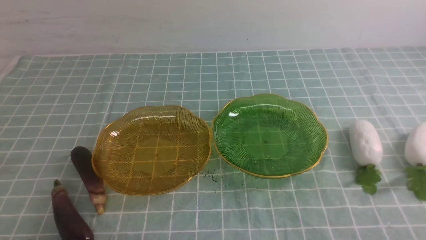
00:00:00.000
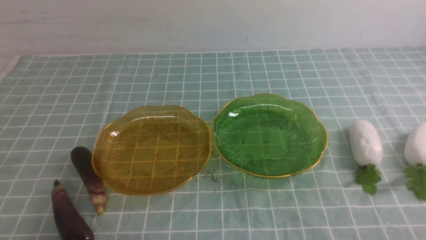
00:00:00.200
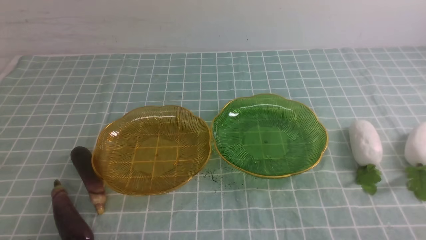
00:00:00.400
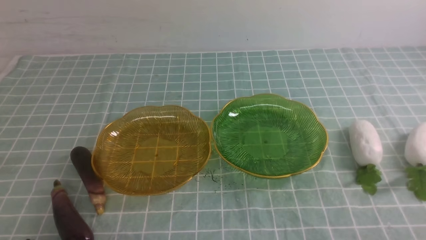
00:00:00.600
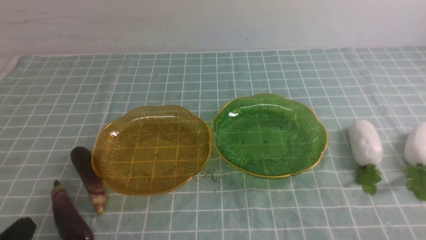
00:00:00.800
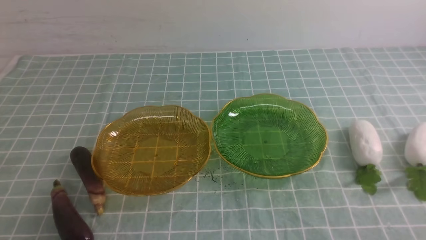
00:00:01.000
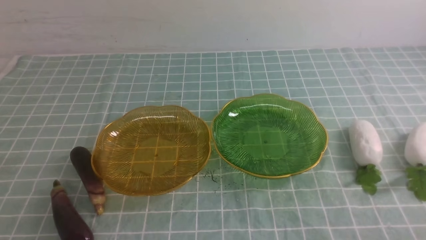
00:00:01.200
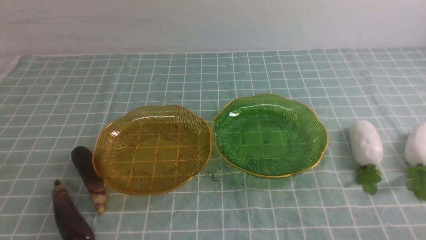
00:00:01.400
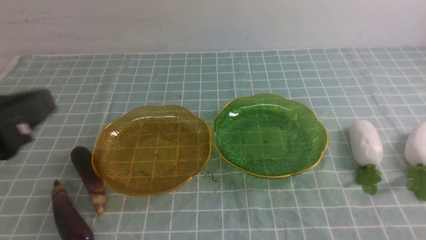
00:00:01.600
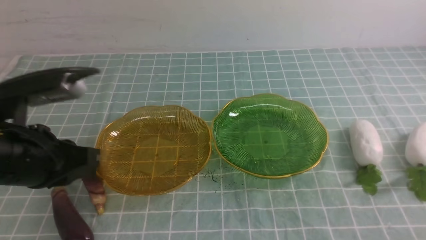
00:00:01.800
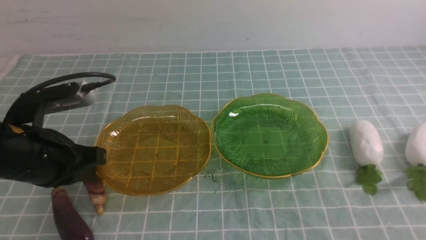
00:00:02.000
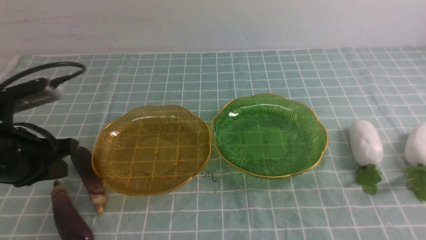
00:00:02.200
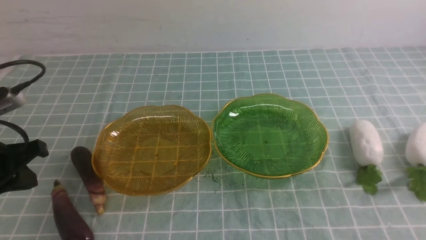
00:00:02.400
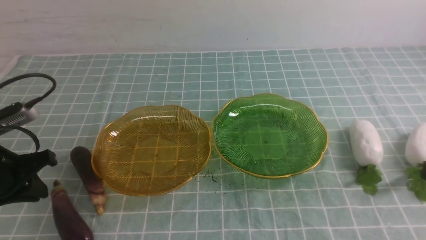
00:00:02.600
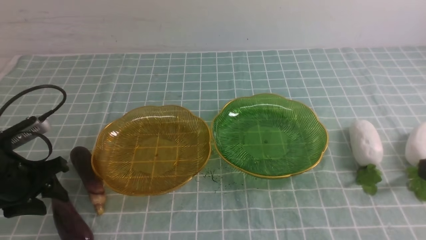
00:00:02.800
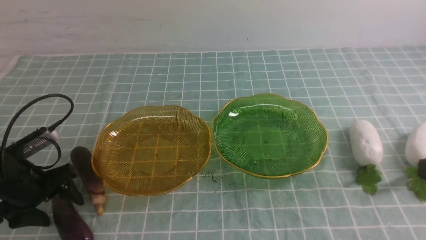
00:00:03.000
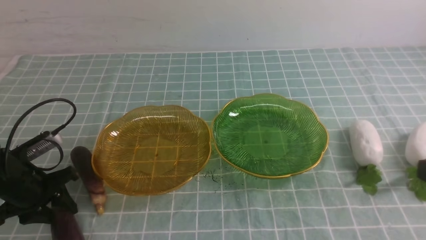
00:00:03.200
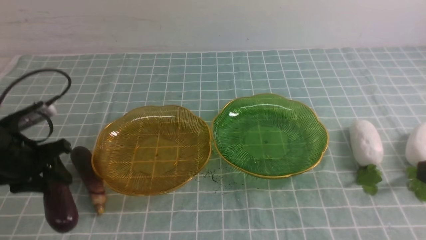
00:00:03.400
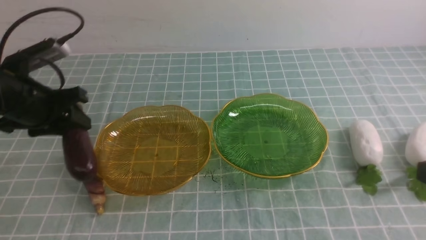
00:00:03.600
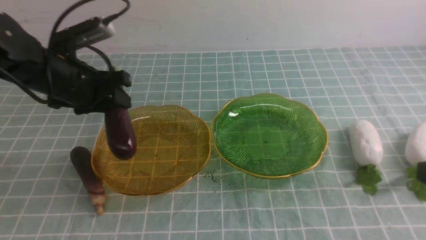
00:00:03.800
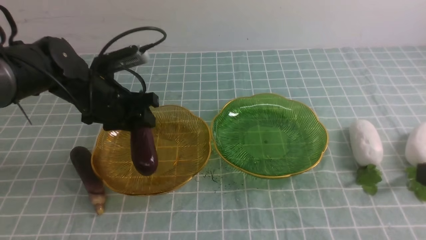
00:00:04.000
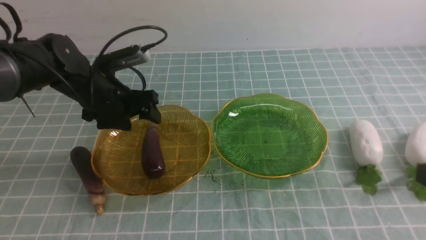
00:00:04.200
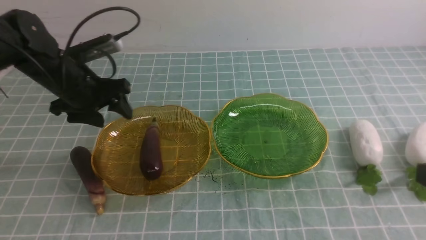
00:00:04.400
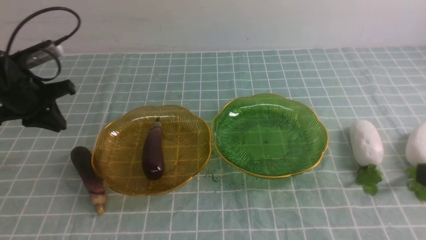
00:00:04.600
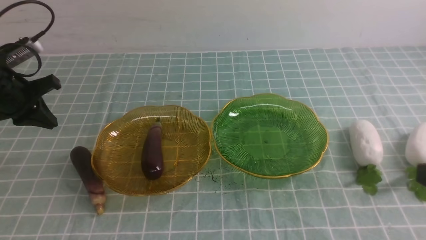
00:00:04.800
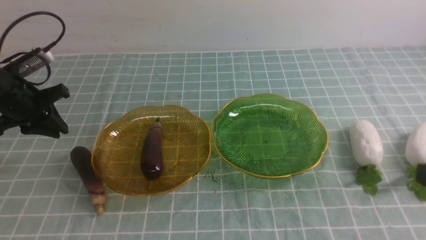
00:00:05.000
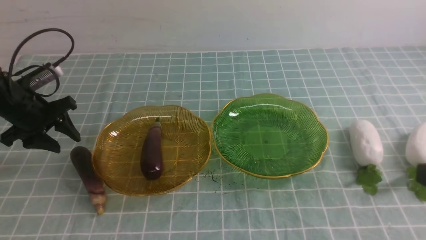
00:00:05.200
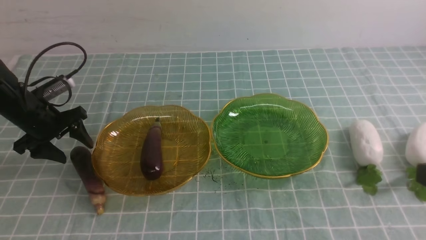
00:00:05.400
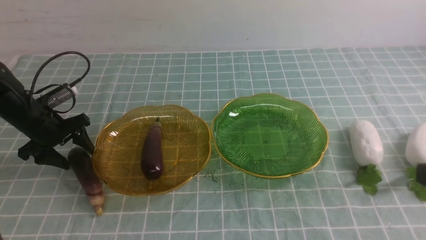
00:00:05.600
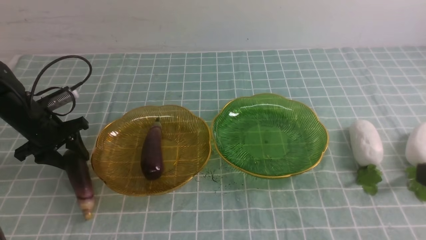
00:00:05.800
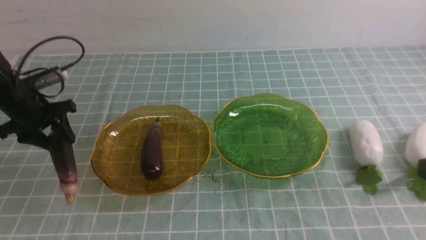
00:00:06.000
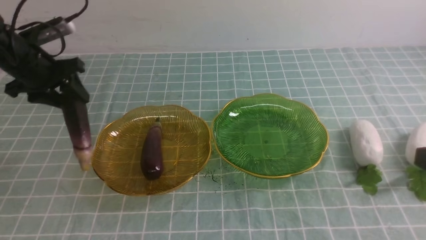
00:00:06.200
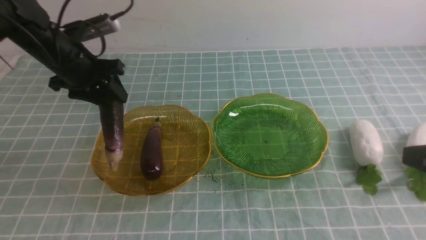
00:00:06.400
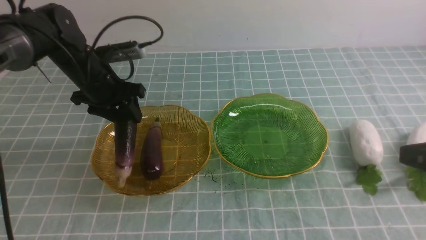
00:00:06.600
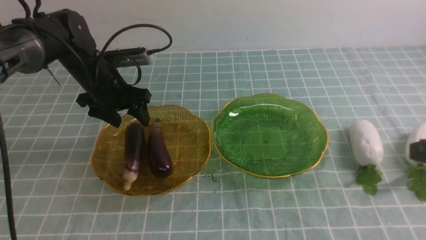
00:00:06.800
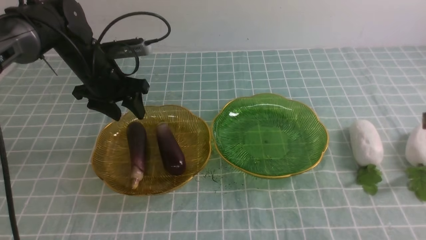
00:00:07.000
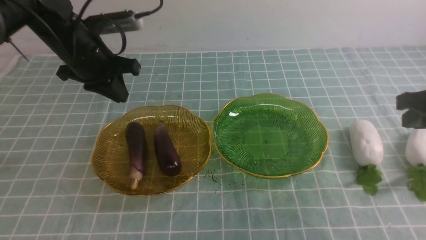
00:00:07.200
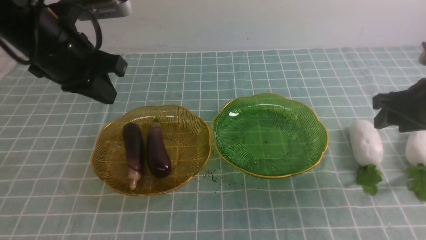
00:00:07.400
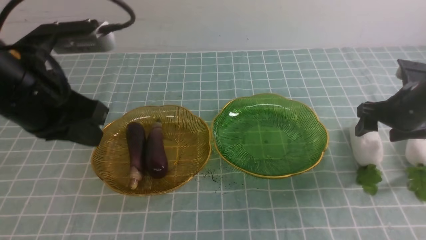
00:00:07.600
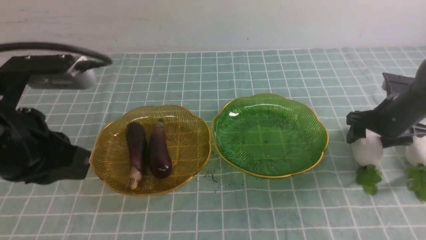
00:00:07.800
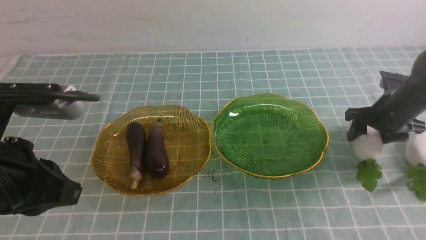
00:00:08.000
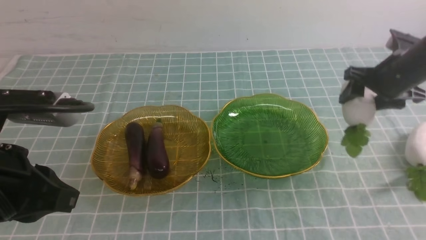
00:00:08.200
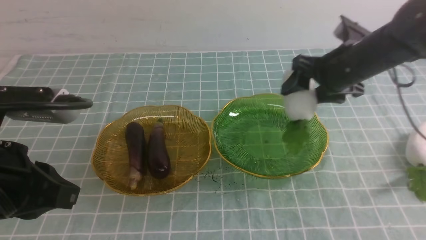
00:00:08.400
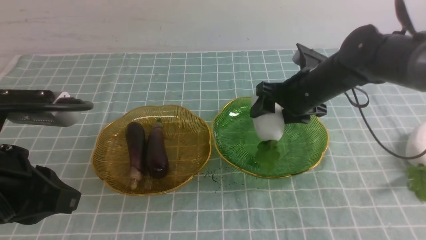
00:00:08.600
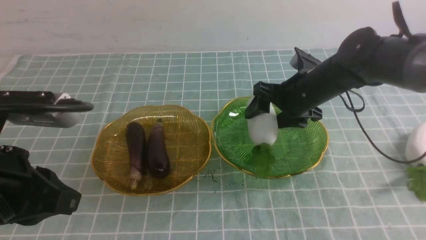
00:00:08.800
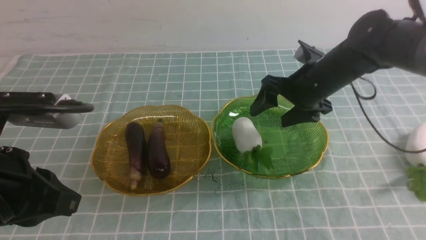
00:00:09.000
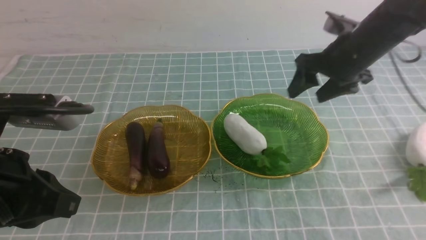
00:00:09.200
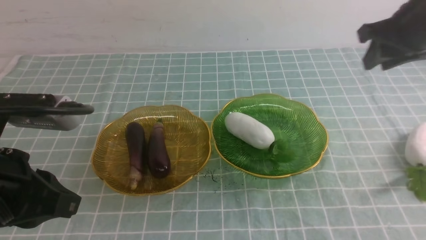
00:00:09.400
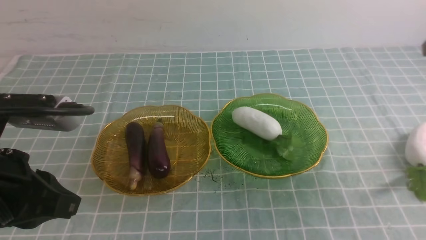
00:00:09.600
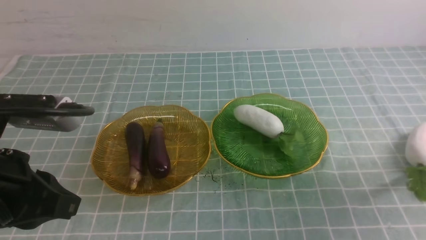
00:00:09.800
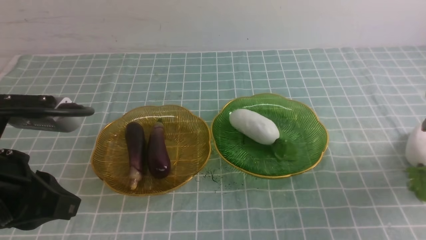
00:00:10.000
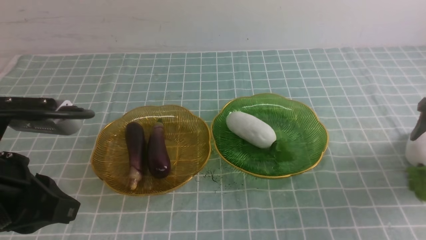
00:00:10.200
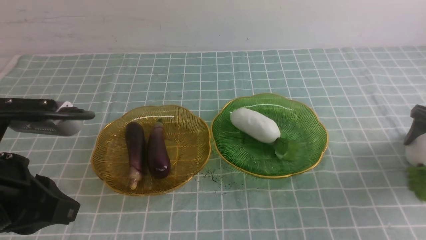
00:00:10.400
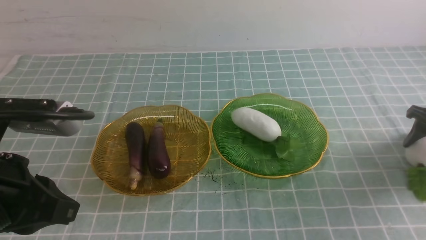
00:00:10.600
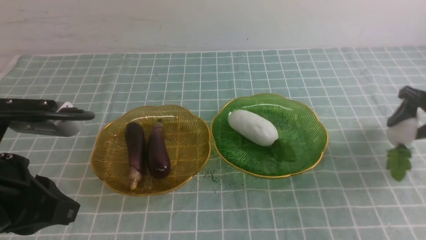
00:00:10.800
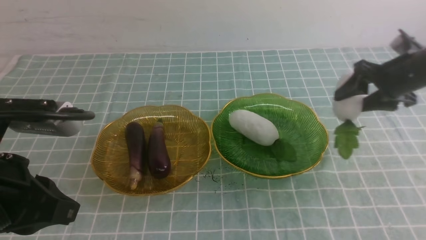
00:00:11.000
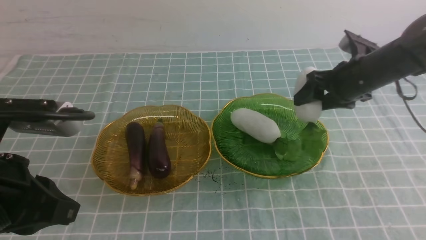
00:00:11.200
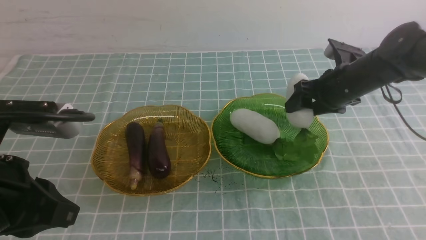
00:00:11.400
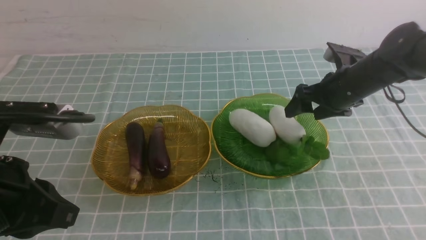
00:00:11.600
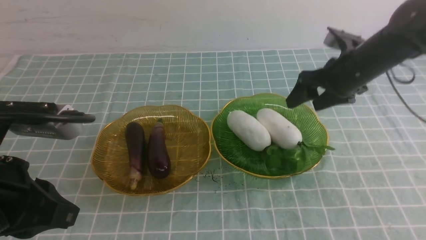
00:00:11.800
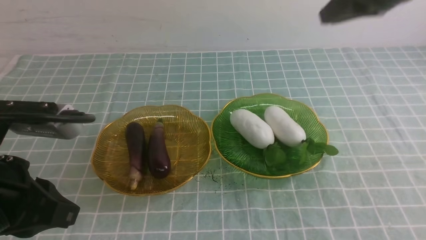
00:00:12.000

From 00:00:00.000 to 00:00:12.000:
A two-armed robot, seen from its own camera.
Step, from 00:00:00.000 to 00:00:06.800: use the left arm to grab an eggplant and put it into the left plate.
Step, from 00:00:07.000 to 00:00:11.600: use the right arm to grab a radish and put it into the right plate.
From 00:00:00.000 to 00:00:01.600: The left gripper moves upward and forward, about 20 cm.
From 00:00:01.600 to 00:00:03.000: The left gripper goes some 25 cm downward, forward and to the left, and opens up.
From 00:00:03.000 to 00:00:04.400: The left gripper is displaced forward, upward and to the right by roughly 15 cm.
From 00:00:04.400 to 00:00:06.000: The left gripper heads to the left, covering approximately 5 cm, reaches roughly 10 cm downward, then returns, and closes, then opens again.
From 00:00:06.000 to 00:00:07.600: The left gripper shifts about 25 cm backward, to the right and upward, and closes its fingers. The right gripper goes some 30 cm forward and downward, and opens.
From 00:00:07.600 to 00:00:09.000: The right gripper travels to the left and upward by some 15 cm. Meanwhile the left gripper travels backward by some 5 cm.
From 00:00:09.000 to 00:00:10.400: The right gripper heads to the right, covering some 25 cm, and closes, then opens again.
From 00:00:10.400 to 00:00:12.000: The right gripper goes about 35 cm upward and to the left, and closes up.

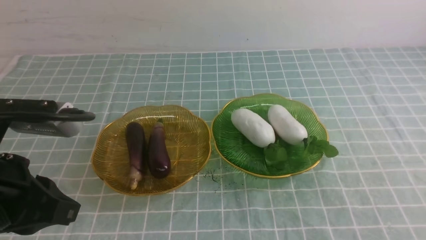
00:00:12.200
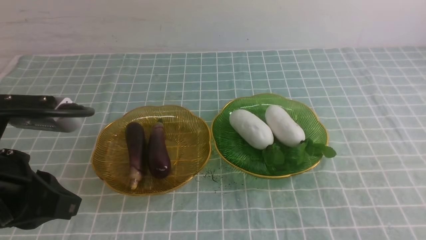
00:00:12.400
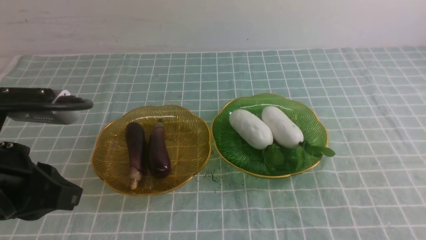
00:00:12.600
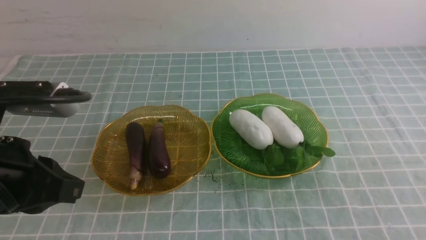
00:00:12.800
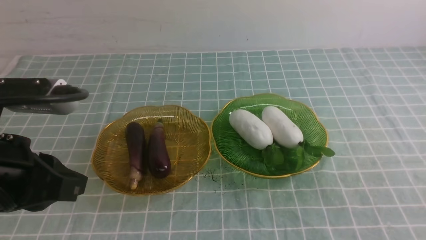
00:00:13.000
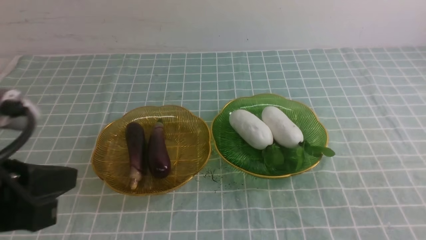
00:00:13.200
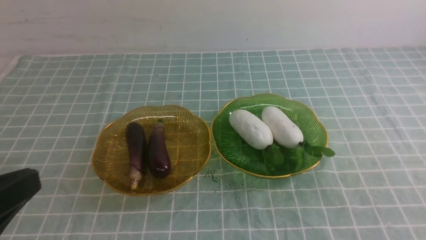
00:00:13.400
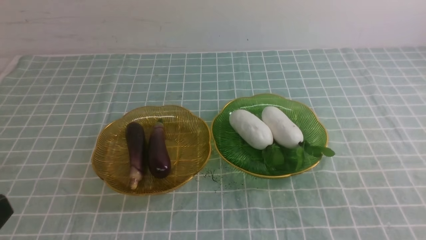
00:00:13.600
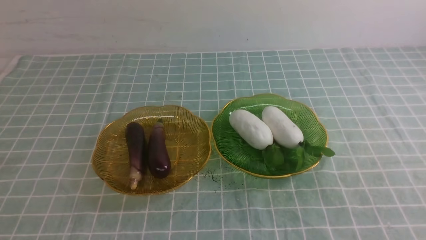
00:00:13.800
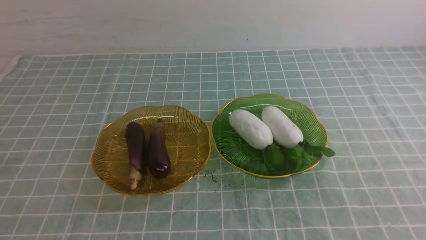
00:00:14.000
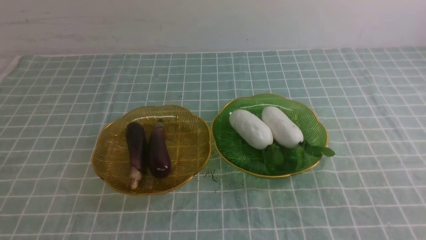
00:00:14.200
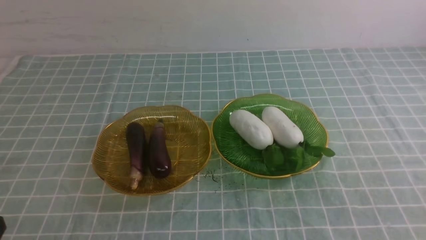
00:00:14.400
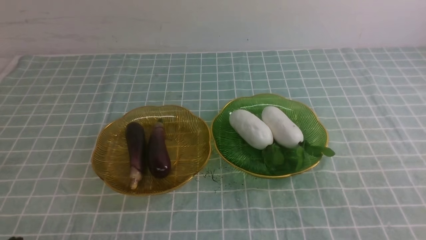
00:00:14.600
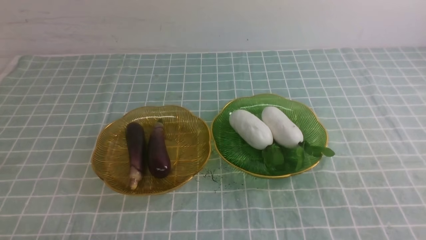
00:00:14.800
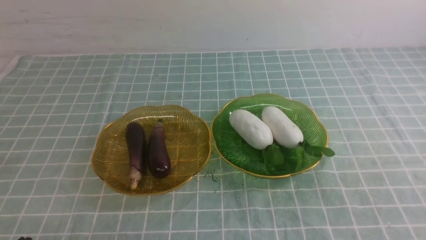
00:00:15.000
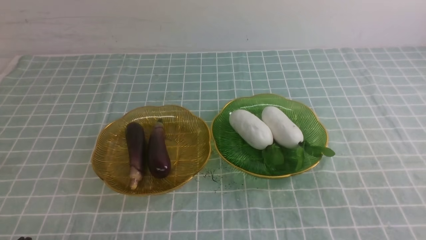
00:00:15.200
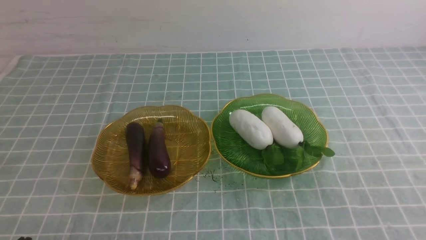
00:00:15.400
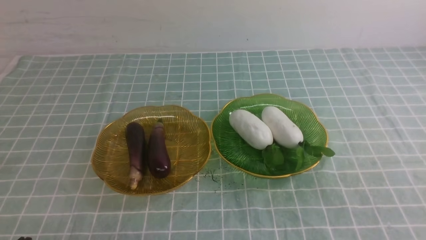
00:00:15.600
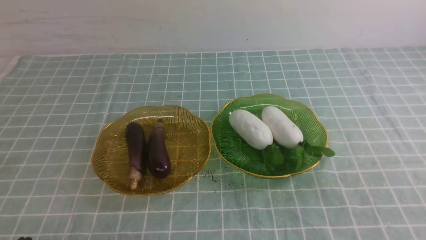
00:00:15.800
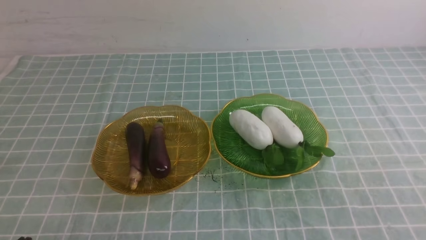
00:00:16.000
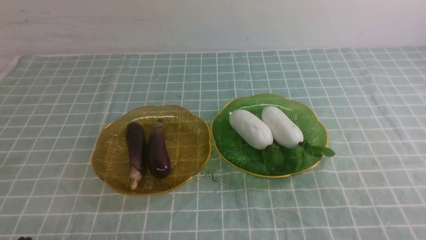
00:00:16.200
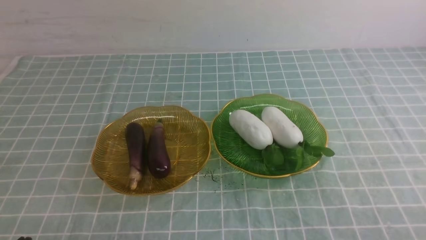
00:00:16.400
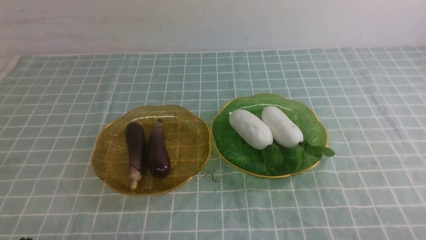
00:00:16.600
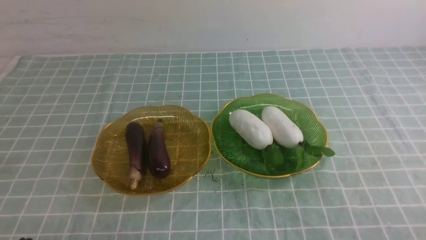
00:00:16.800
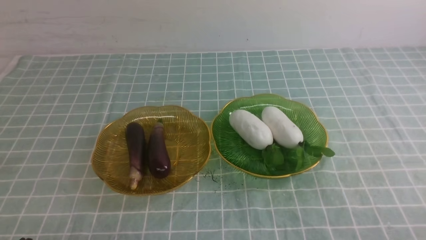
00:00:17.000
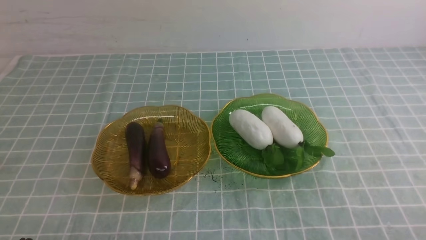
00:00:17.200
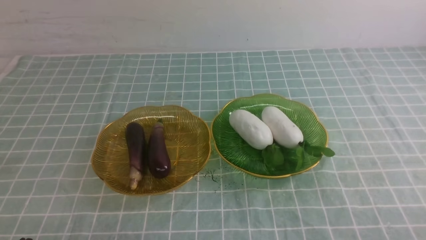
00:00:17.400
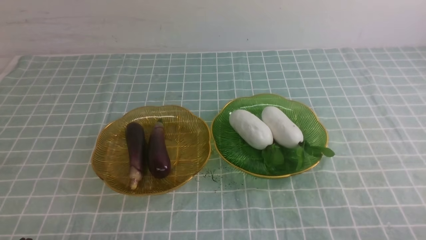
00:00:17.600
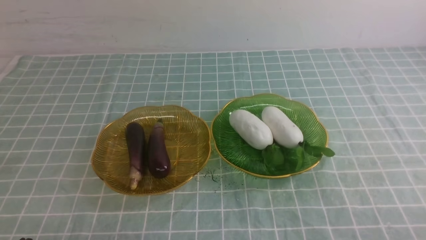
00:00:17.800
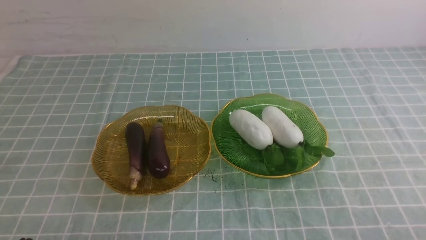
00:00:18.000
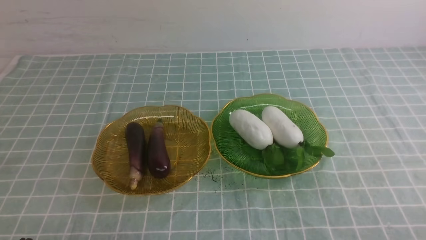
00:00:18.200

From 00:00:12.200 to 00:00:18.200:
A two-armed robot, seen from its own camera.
From 00:00:12.200 to 00:00:13.800: The left gripper shifts about 15 cm backward, while the right gripper heads backward and downward, covering about 30 cm.
From 00:00:16.600 to 00:00:18.200: The two grippers keep their place.
